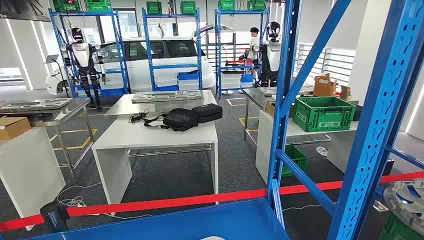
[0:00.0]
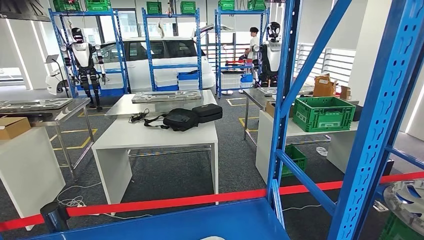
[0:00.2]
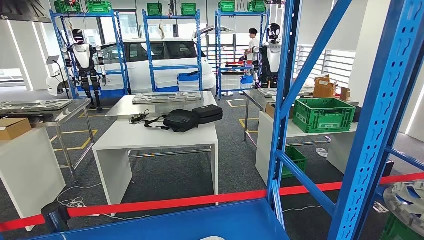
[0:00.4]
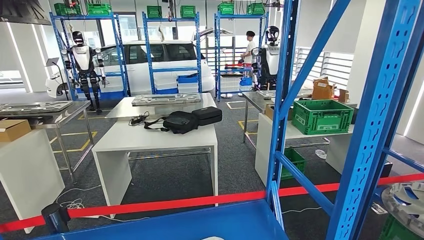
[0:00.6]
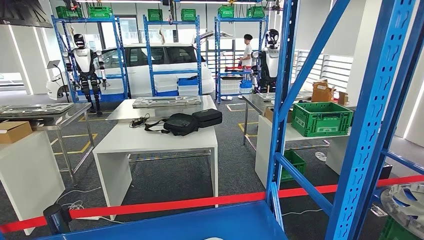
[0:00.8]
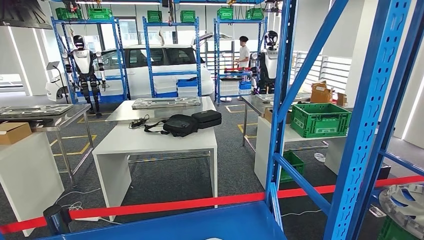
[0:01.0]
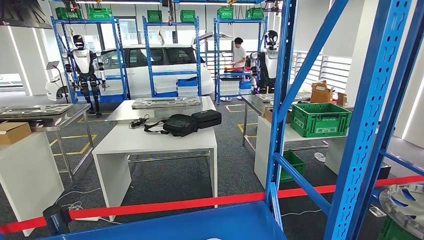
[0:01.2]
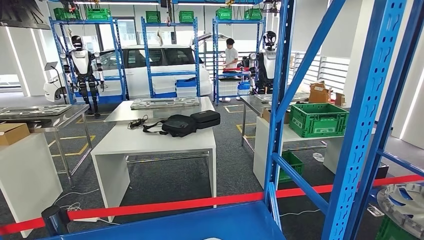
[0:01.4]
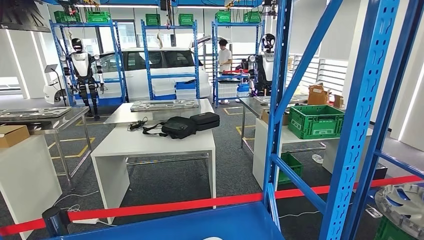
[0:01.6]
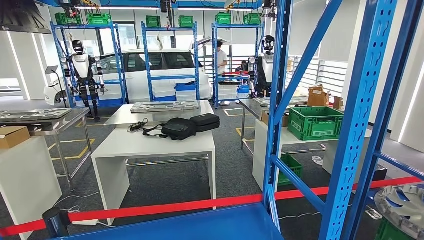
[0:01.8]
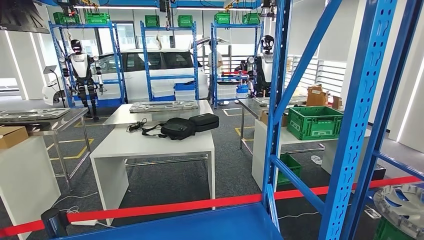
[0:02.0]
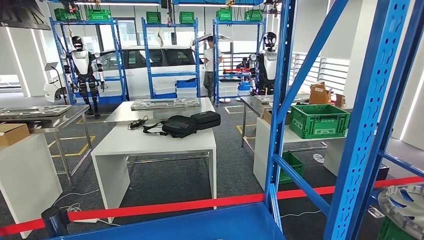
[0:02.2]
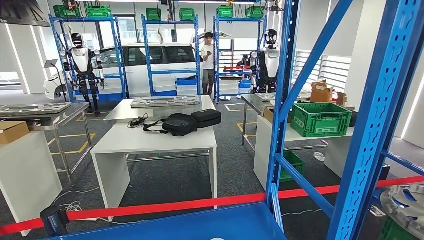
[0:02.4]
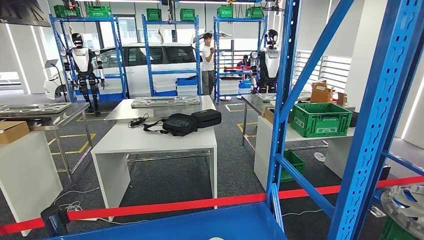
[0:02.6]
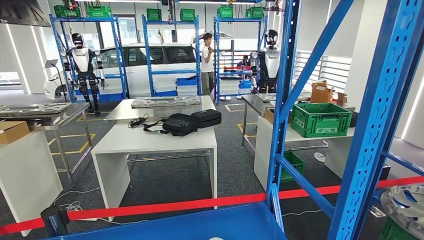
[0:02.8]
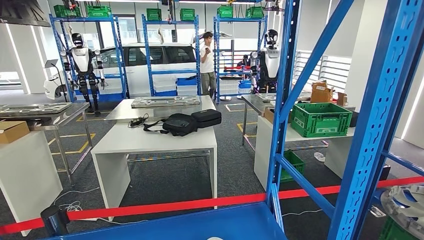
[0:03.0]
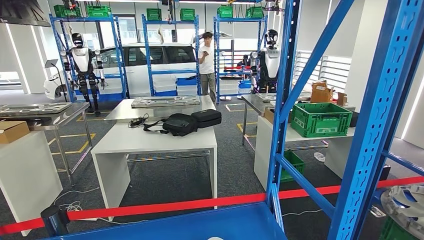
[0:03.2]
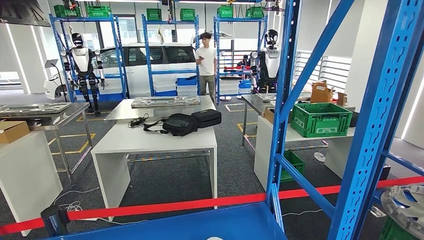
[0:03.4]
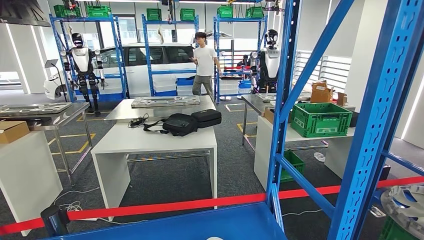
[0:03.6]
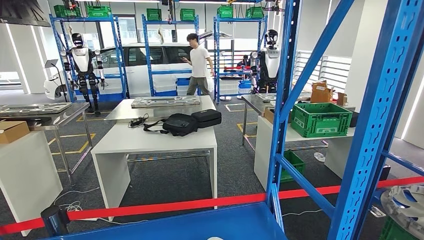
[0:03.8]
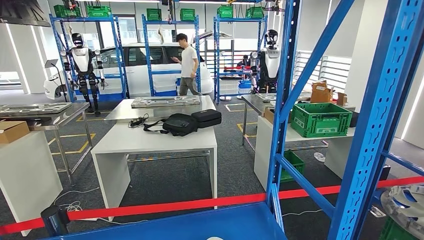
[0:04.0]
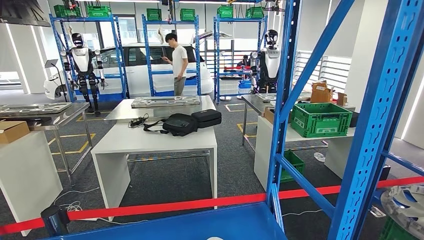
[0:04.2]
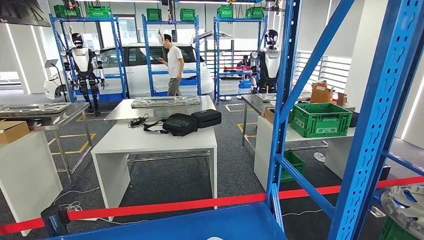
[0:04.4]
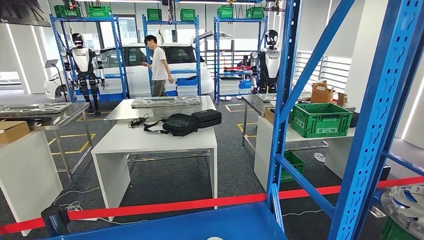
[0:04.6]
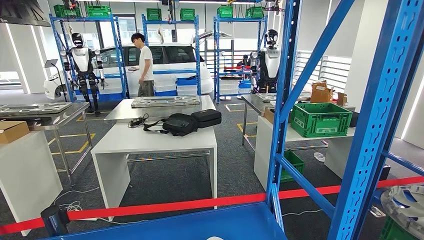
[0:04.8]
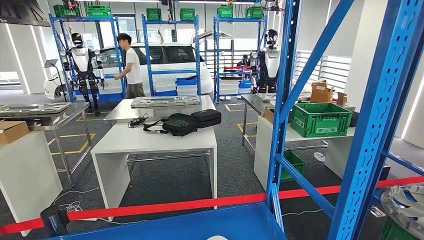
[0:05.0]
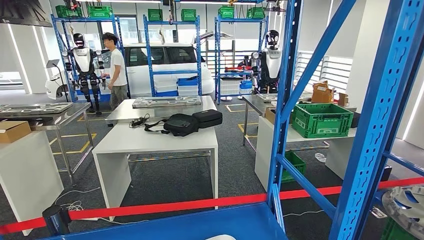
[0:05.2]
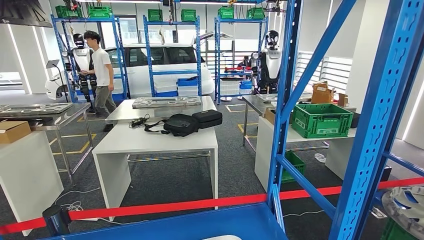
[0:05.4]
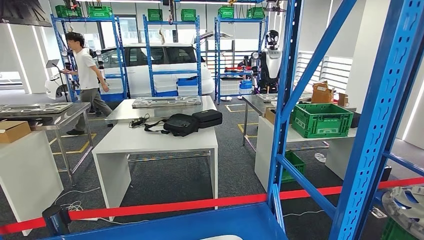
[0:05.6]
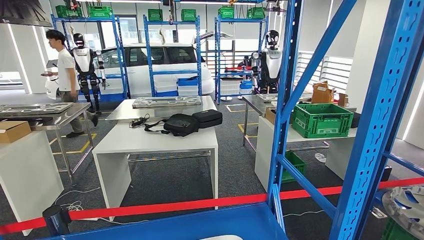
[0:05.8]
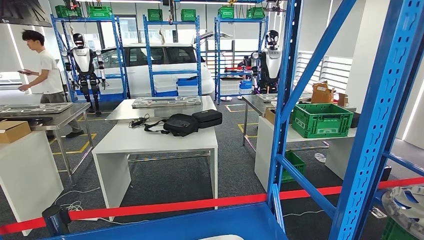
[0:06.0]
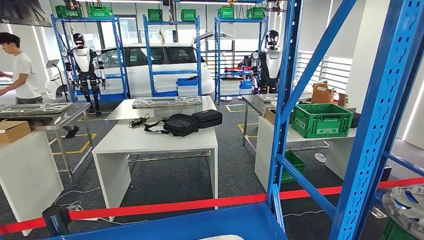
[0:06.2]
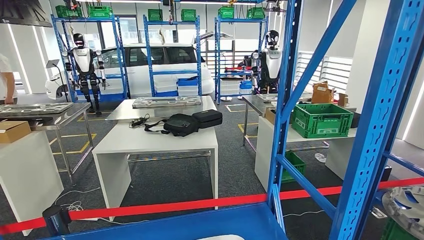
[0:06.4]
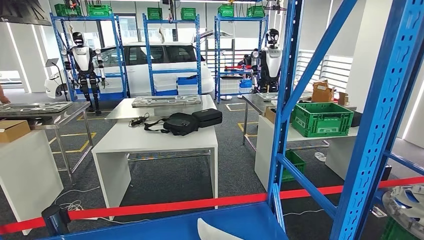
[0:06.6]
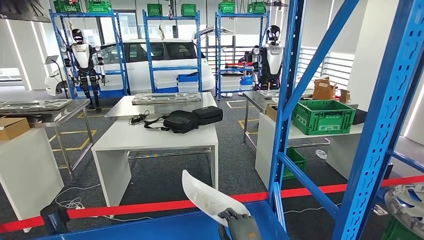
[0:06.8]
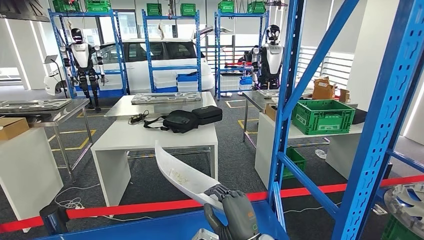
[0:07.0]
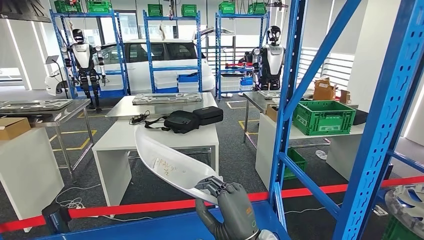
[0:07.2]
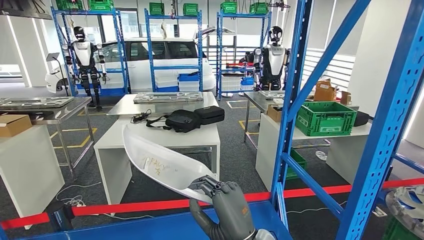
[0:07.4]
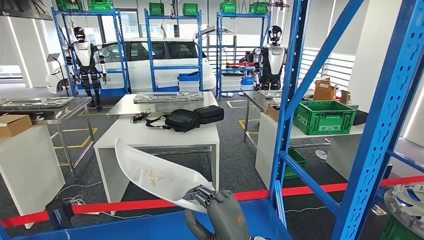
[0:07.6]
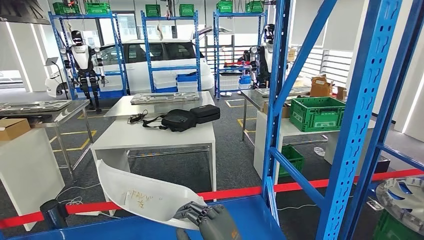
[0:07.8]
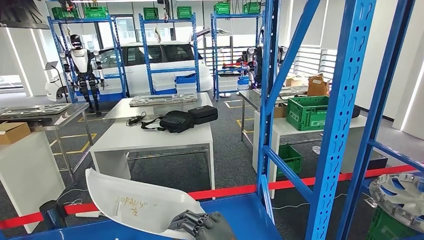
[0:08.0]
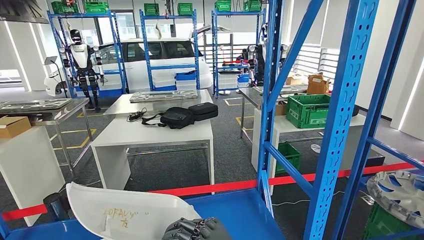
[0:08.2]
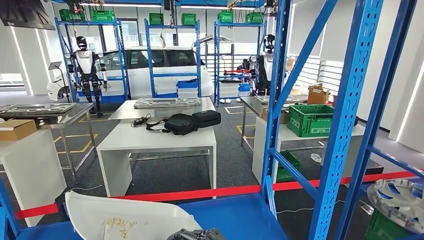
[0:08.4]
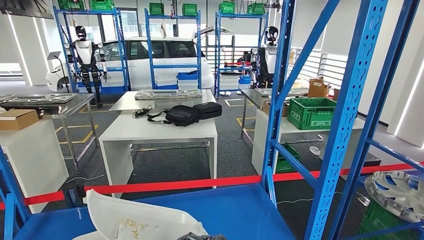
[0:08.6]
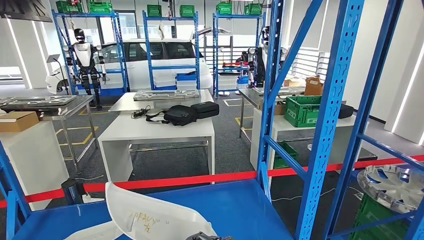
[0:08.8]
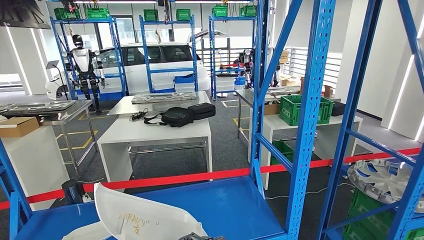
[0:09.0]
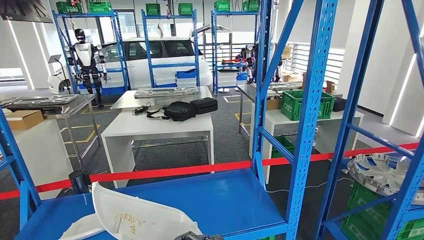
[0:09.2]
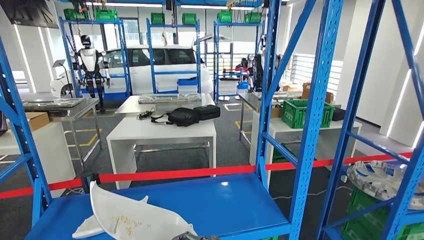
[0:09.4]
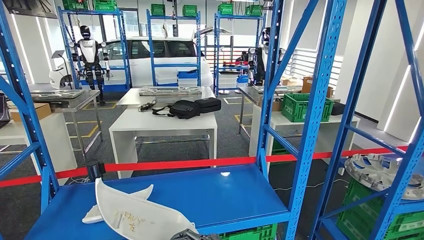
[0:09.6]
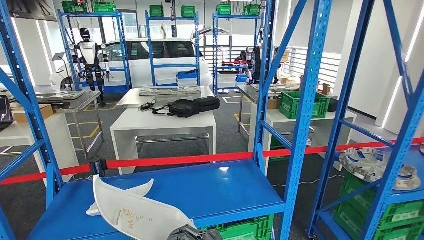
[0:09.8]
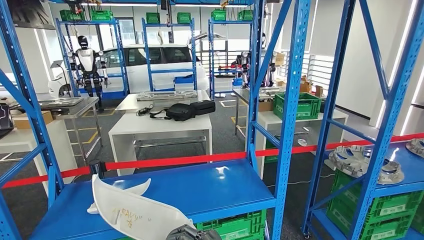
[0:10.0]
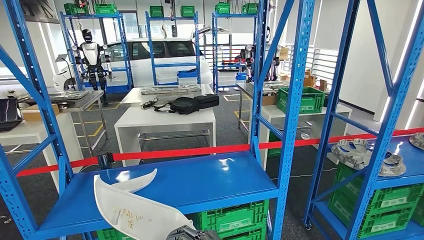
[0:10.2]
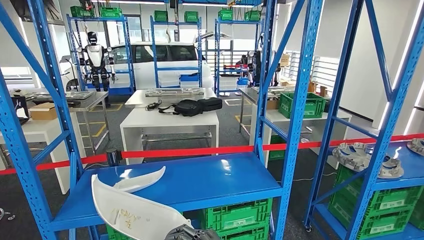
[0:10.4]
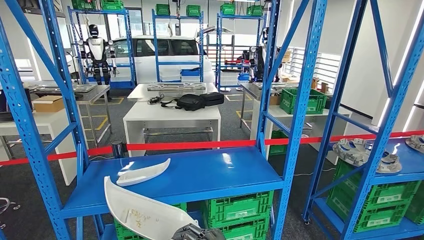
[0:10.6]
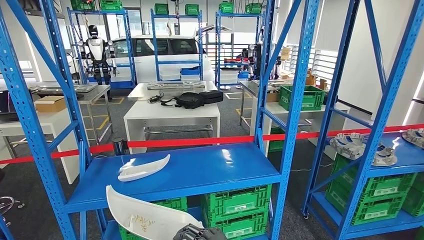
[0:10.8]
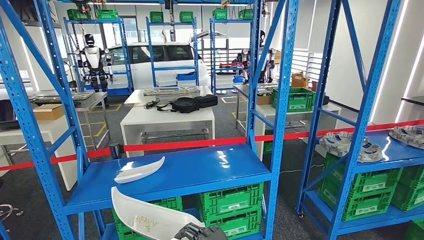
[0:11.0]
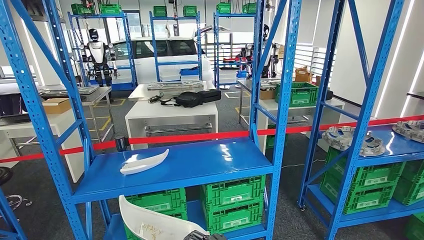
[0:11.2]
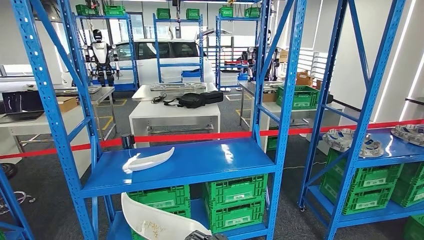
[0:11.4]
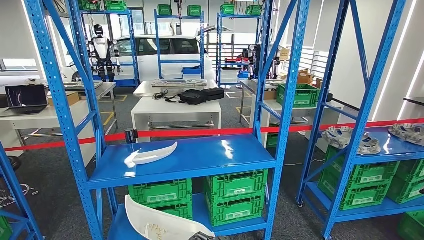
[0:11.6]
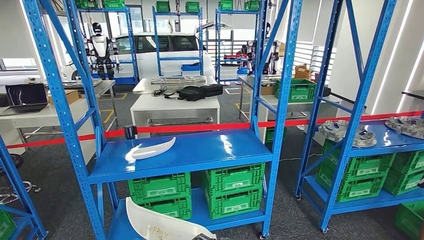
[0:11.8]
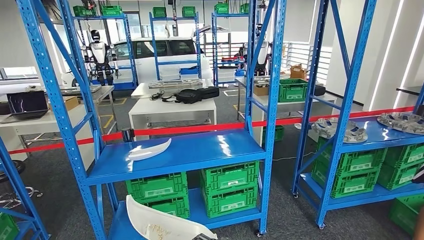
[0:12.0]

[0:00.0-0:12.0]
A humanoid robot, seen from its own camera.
Step, 0:00.0 to 0:07.8: Pick up the small parts from the shelf.
0:03.0 to 0:04.4: The two hands keep their place.
0:04.4 to 0:06.0: The hands stay close to where they were, moving slightly.

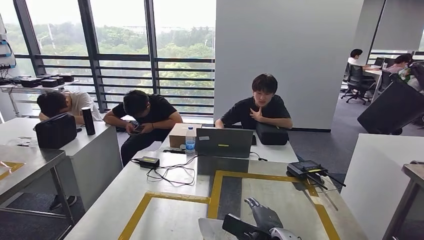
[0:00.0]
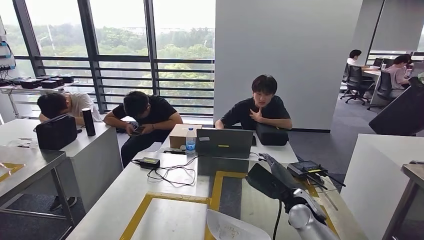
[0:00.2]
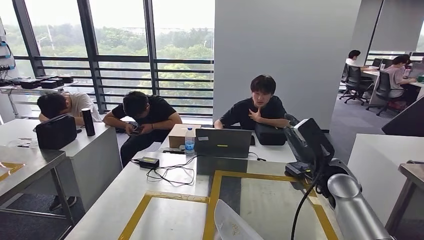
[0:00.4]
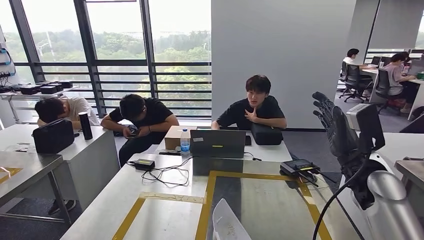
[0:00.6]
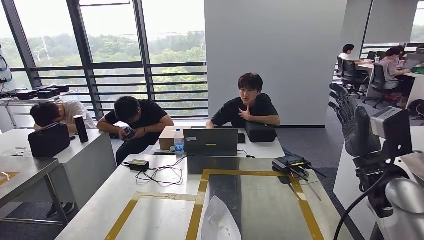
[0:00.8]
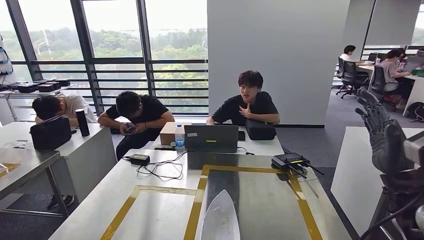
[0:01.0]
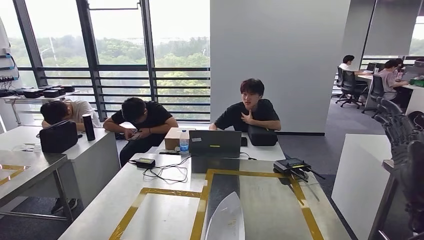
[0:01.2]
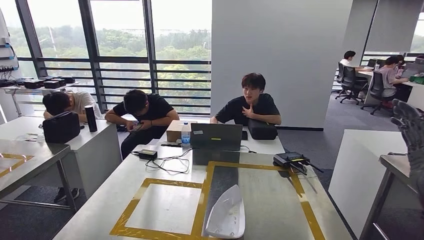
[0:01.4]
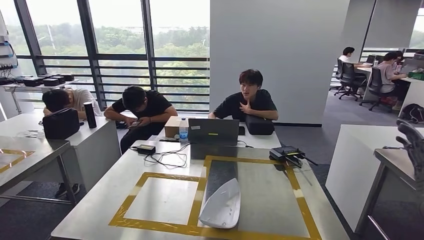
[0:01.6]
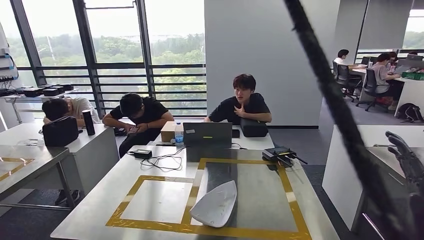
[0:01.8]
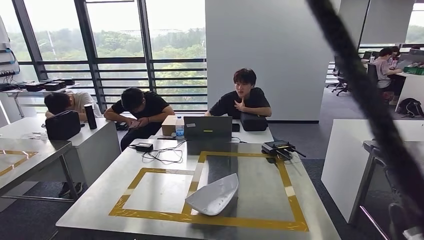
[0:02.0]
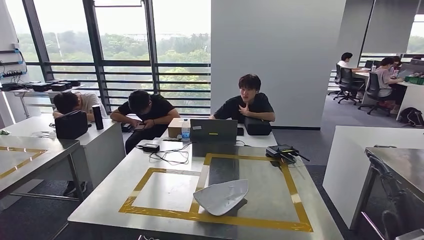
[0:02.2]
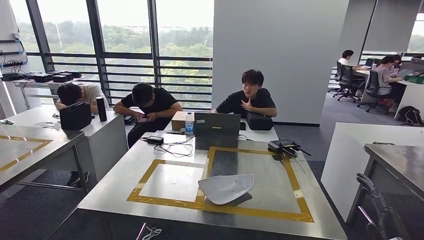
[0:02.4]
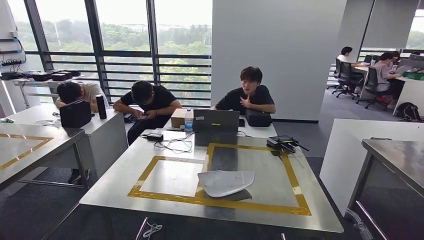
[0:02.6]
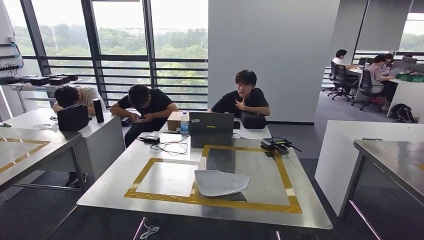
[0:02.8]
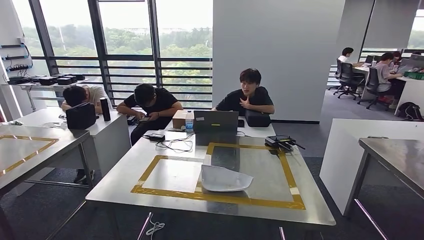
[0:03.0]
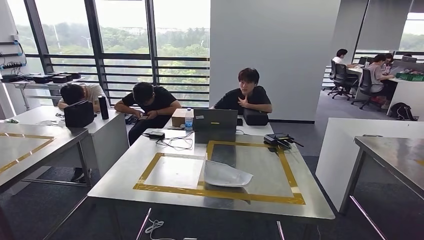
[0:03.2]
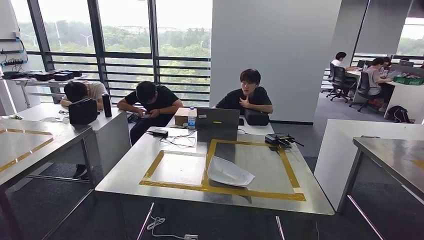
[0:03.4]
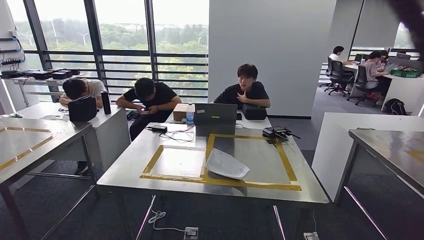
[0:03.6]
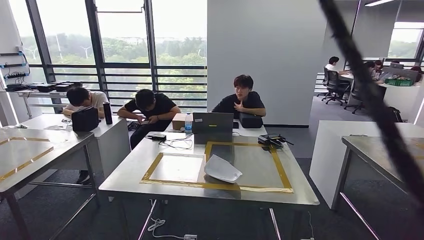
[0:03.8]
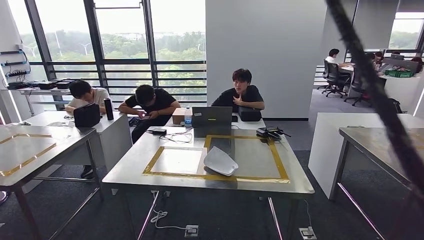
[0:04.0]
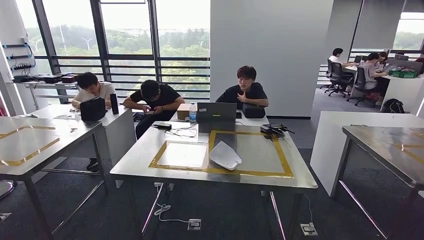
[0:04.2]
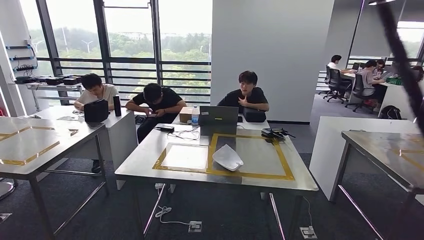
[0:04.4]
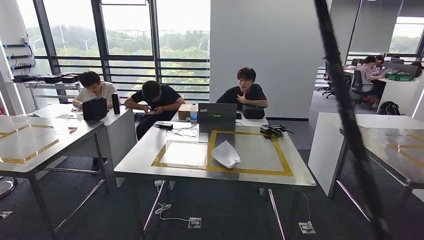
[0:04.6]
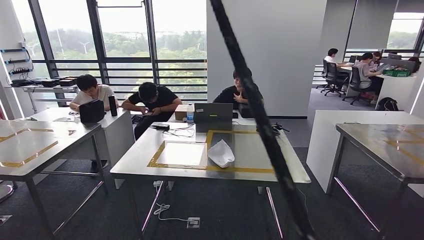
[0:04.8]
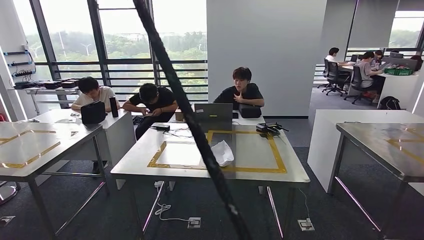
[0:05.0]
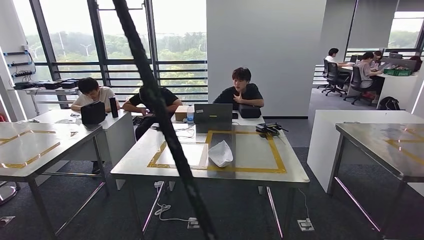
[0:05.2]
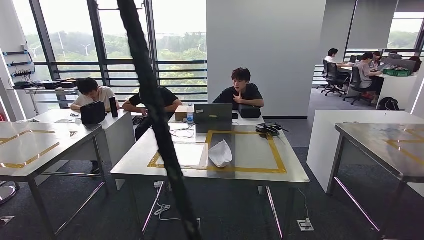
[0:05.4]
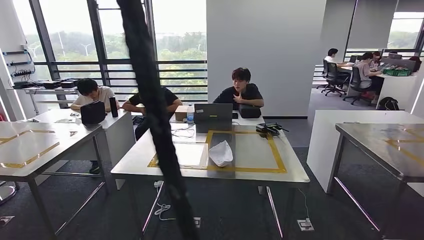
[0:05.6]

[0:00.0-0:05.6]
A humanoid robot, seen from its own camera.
Step, 0:01.6 to 0:05.4: Move to the initial position at the workbench.
